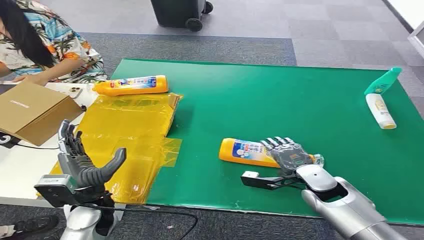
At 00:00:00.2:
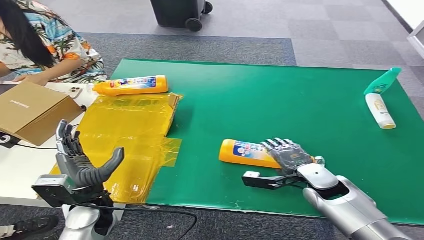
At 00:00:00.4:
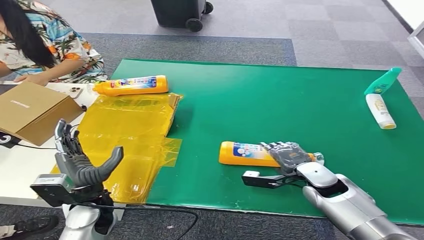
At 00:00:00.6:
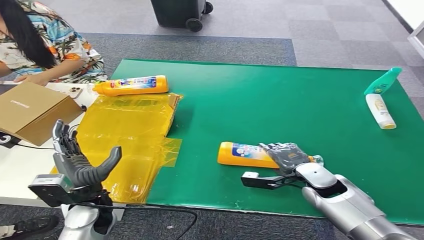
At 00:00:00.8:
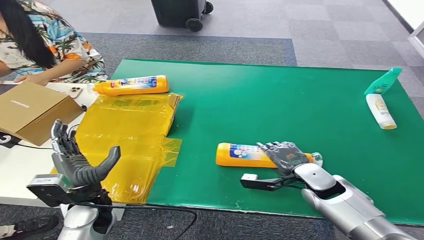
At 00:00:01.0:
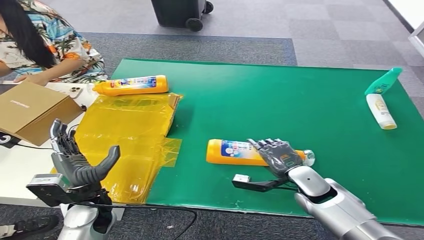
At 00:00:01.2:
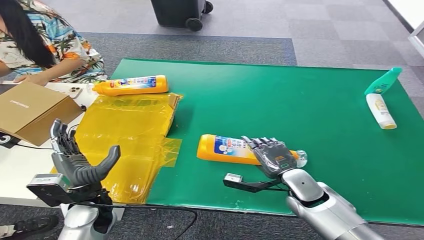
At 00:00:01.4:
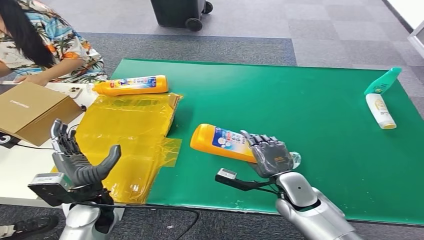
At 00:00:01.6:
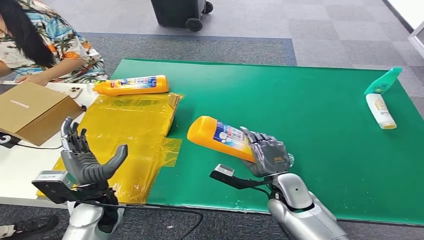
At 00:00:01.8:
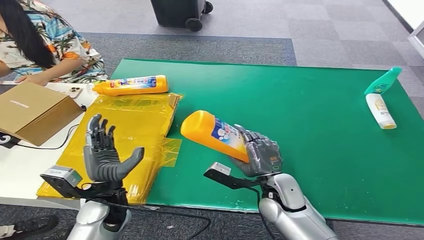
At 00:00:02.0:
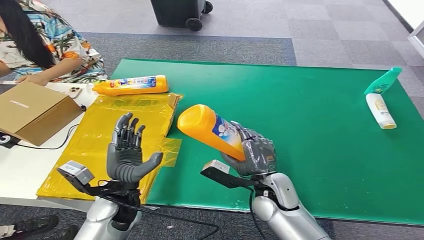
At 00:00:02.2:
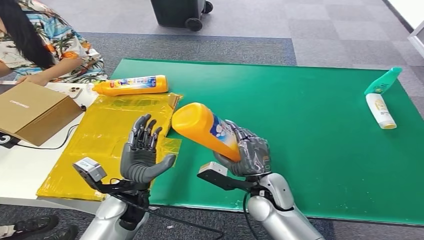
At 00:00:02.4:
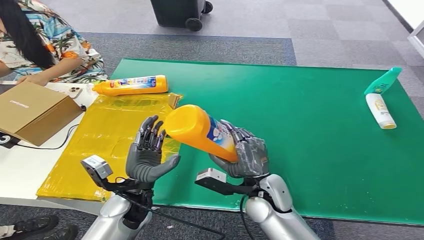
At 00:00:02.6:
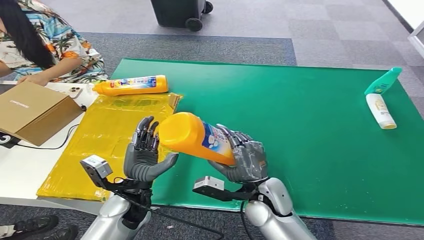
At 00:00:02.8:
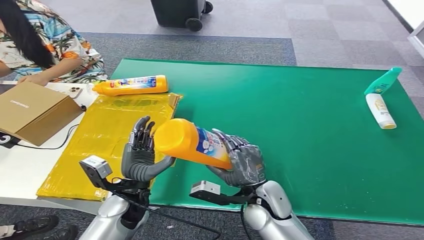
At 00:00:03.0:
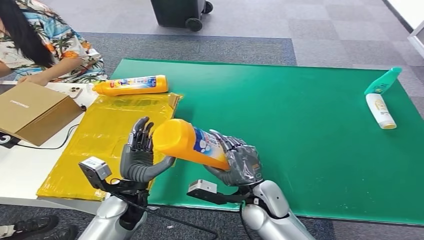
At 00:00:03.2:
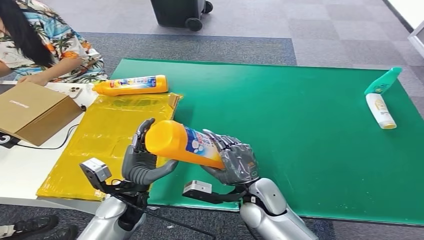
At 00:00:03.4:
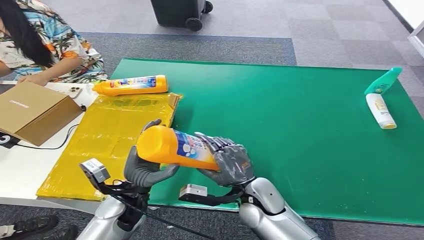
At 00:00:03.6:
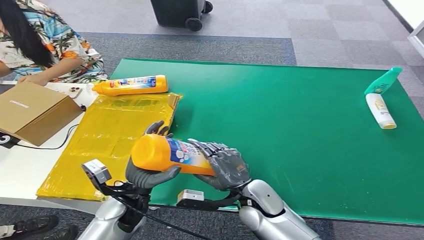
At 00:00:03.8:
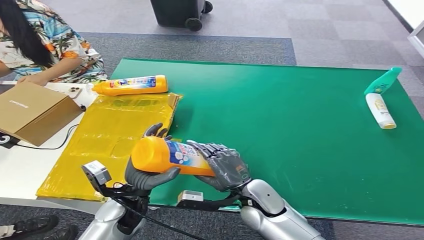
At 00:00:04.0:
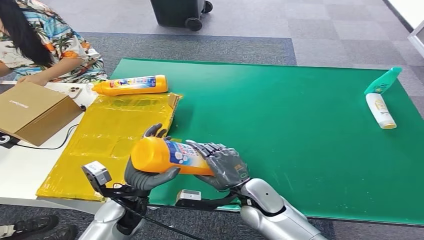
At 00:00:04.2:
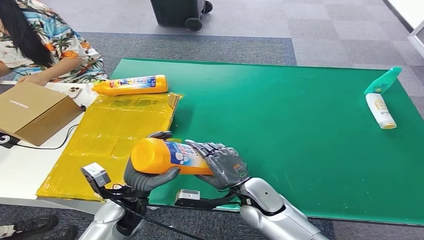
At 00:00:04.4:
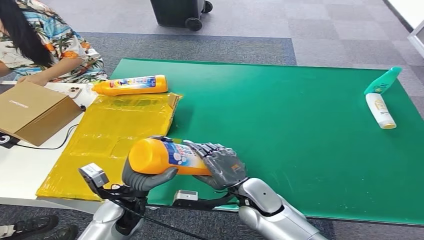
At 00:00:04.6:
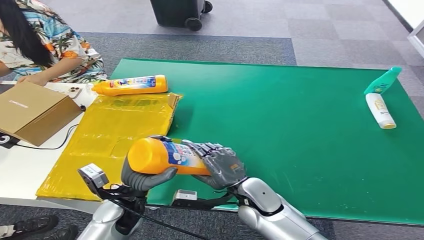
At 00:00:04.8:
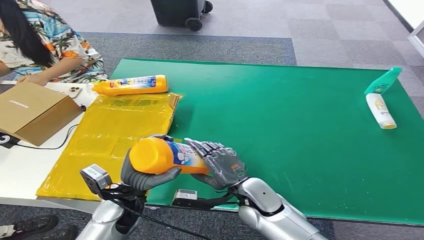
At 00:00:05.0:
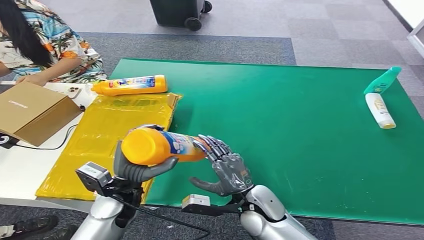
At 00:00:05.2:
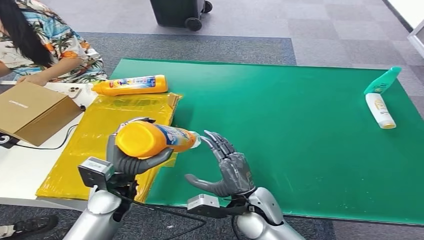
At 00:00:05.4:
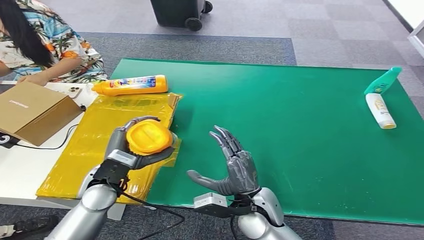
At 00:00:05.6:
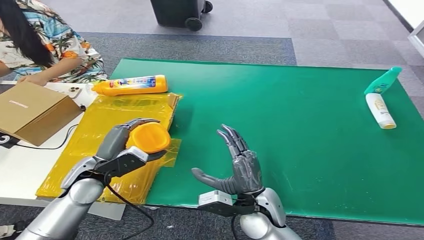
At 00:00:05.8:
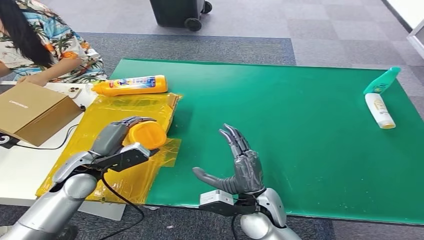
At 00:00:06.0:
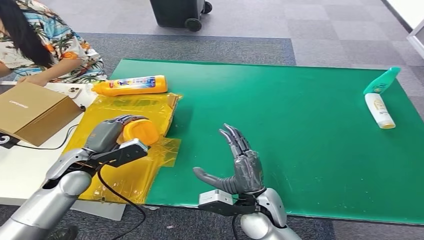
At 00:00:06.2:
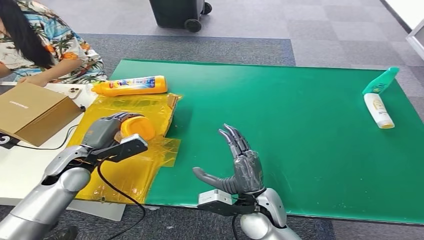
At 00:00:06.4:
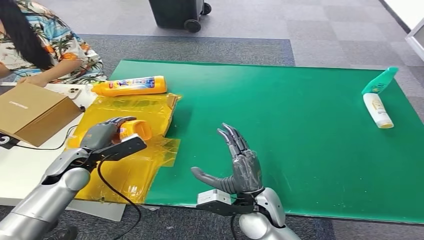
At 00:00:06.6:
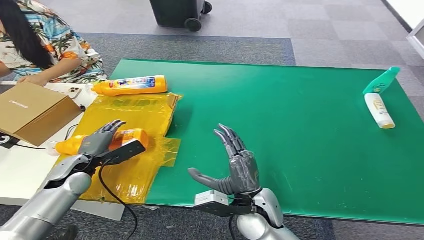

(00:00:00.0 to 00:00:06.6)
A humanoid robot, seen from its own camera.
Step, 00:00:00.0 - 00:00:02.4: Pick up the bottle from the table.
Step, 00:00:02.6 - 00:00:06.6: Turn the bottle to the front side.
00:00:01.6 - 00:00:03.2: The right hand moves to the left, some 5 cm, while the left hand heads to the right, covering roughly 5 cm.
00:00:03.2 - 00:00:05.0: There are only small adjustments of the hands.
00:00:05.0 - 00:00:06.6: The left hand is displaced to the left and forward by approximately 15 cm.

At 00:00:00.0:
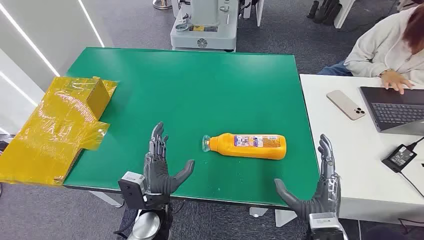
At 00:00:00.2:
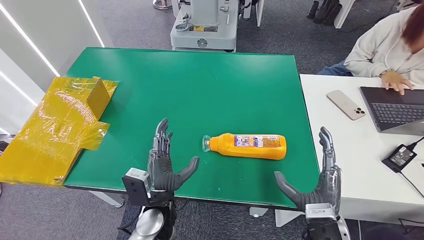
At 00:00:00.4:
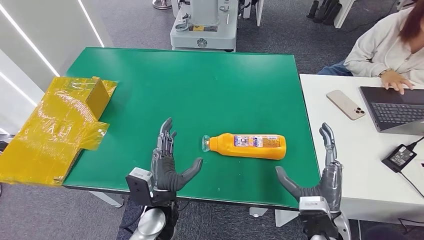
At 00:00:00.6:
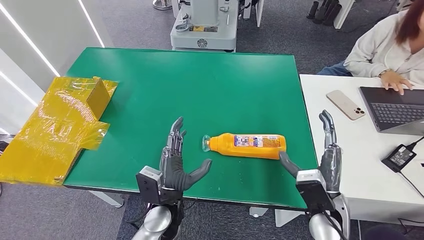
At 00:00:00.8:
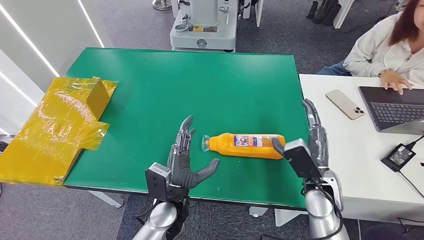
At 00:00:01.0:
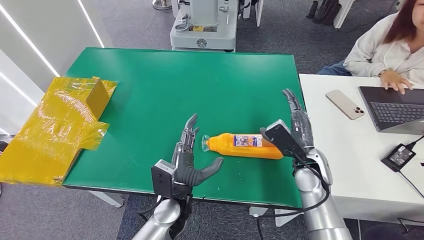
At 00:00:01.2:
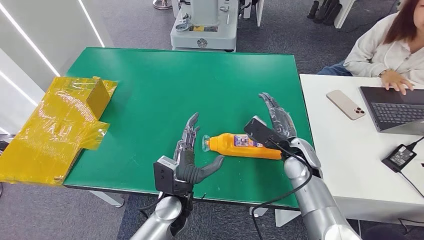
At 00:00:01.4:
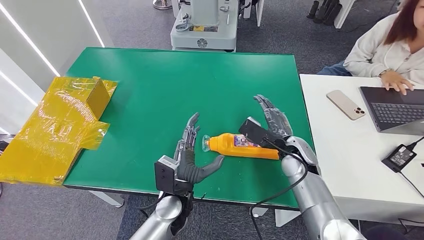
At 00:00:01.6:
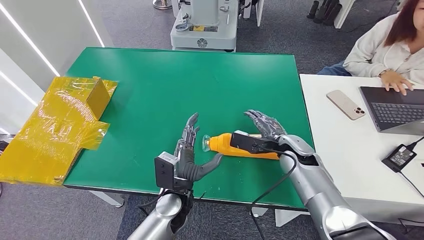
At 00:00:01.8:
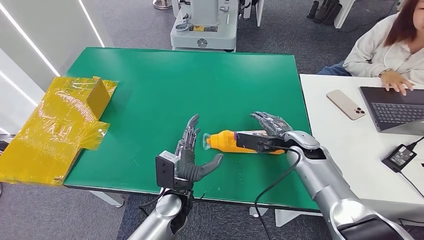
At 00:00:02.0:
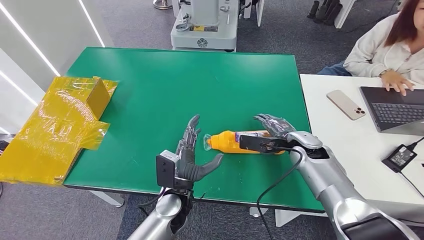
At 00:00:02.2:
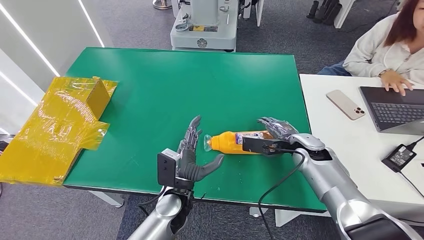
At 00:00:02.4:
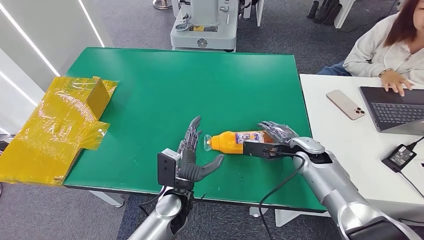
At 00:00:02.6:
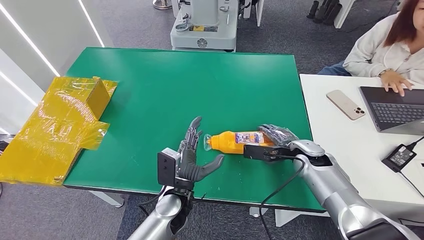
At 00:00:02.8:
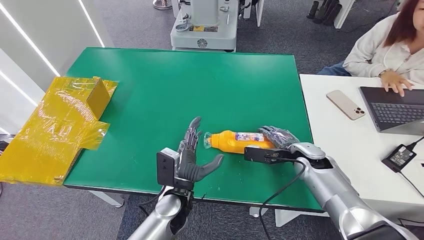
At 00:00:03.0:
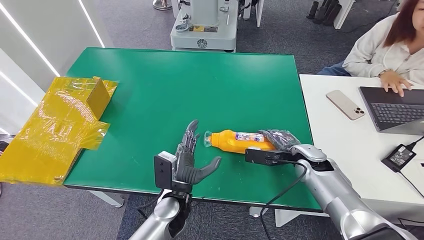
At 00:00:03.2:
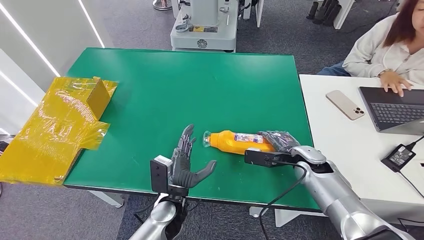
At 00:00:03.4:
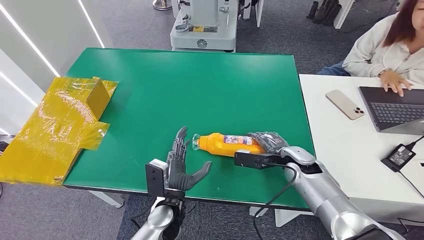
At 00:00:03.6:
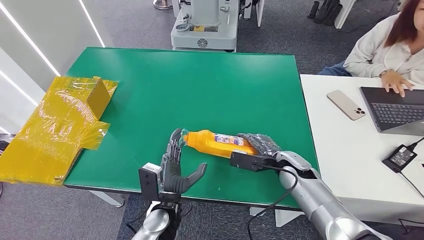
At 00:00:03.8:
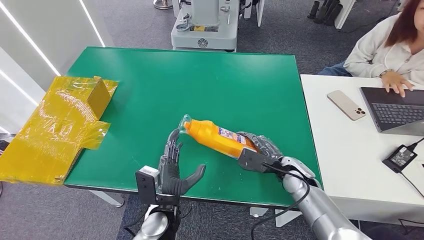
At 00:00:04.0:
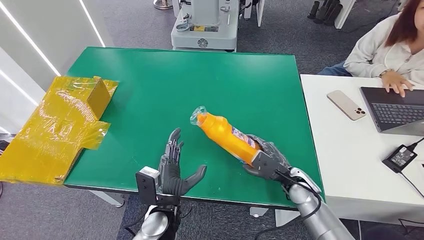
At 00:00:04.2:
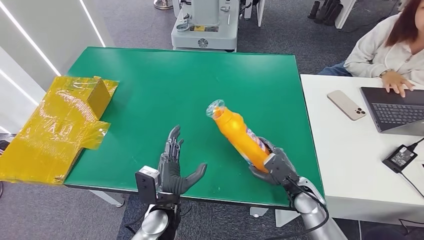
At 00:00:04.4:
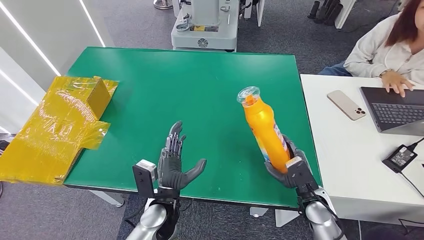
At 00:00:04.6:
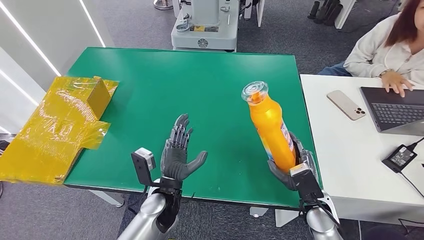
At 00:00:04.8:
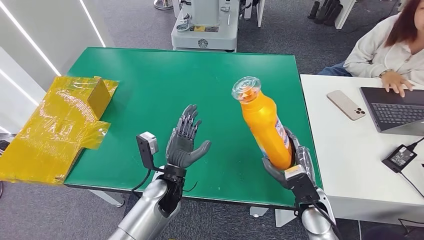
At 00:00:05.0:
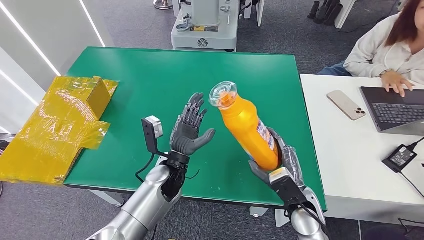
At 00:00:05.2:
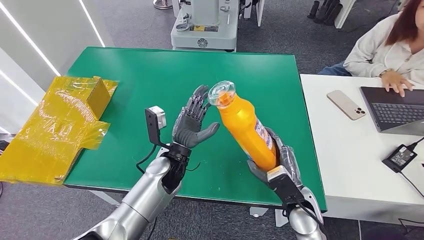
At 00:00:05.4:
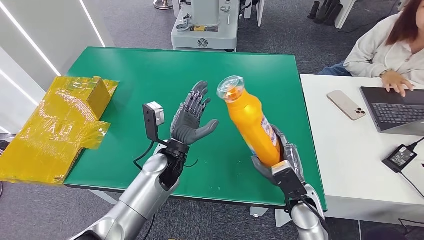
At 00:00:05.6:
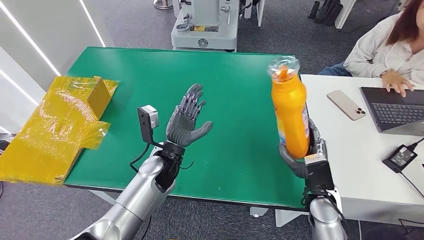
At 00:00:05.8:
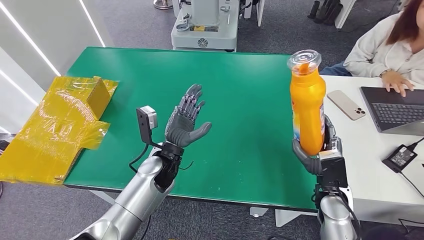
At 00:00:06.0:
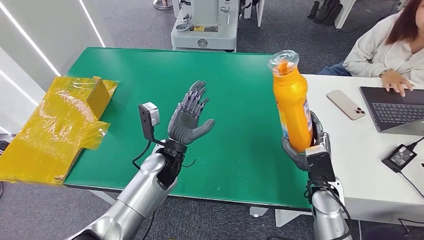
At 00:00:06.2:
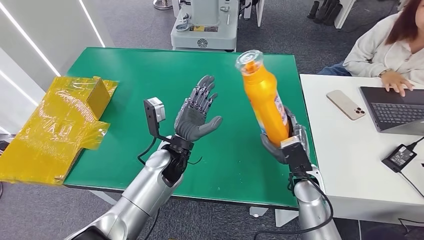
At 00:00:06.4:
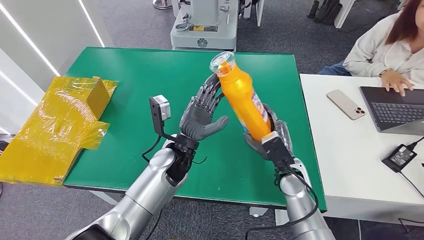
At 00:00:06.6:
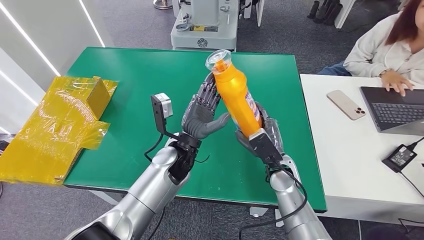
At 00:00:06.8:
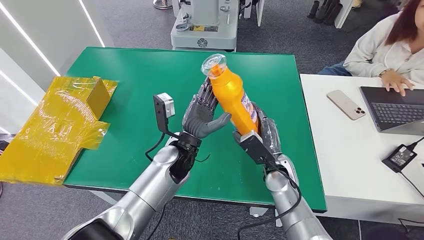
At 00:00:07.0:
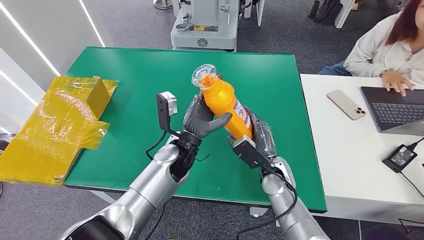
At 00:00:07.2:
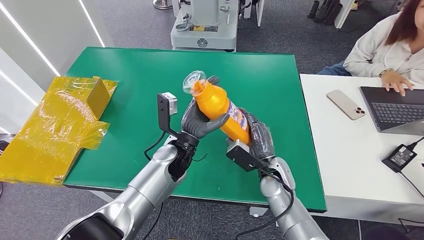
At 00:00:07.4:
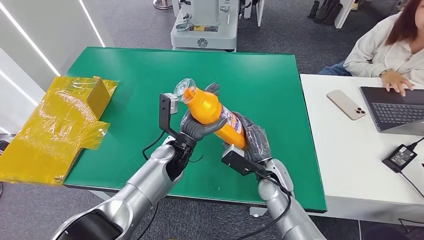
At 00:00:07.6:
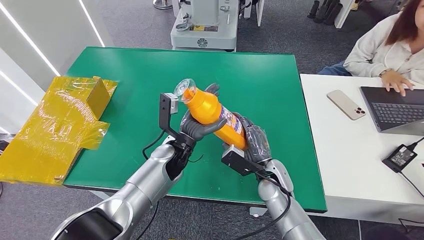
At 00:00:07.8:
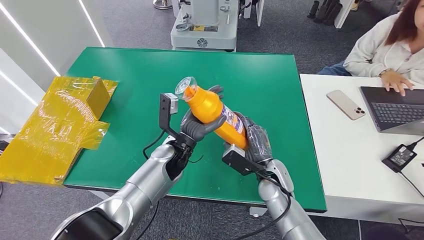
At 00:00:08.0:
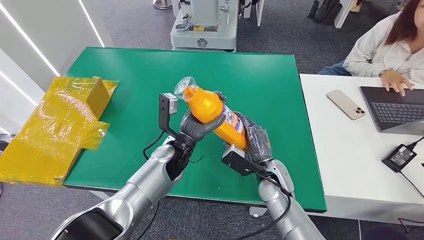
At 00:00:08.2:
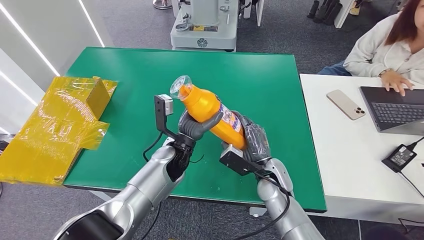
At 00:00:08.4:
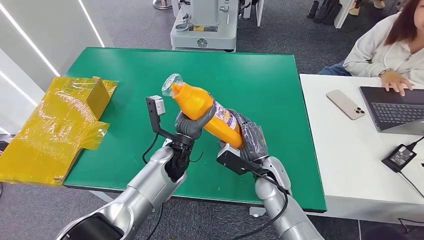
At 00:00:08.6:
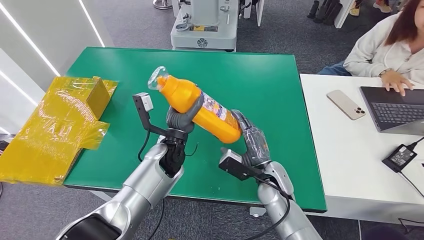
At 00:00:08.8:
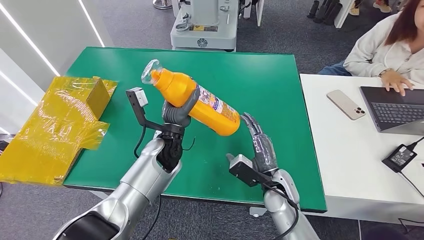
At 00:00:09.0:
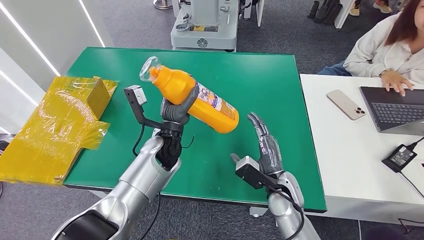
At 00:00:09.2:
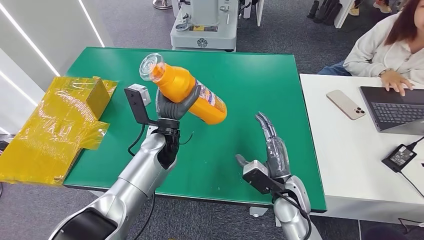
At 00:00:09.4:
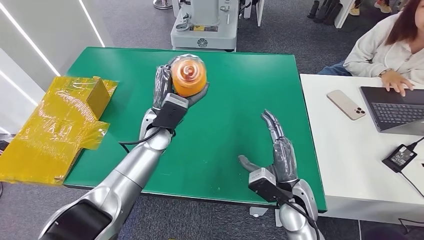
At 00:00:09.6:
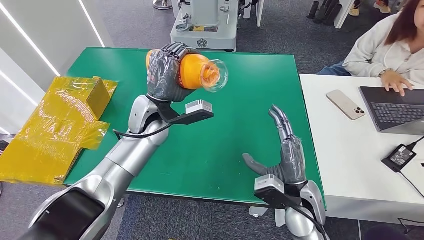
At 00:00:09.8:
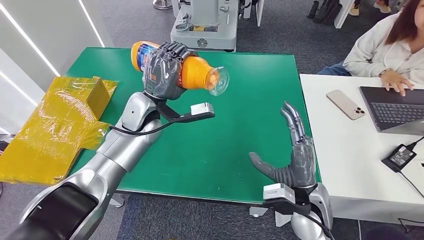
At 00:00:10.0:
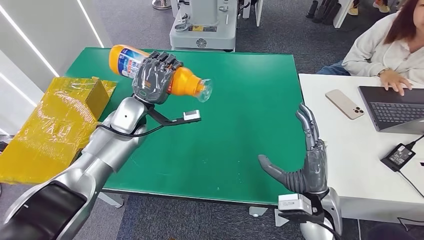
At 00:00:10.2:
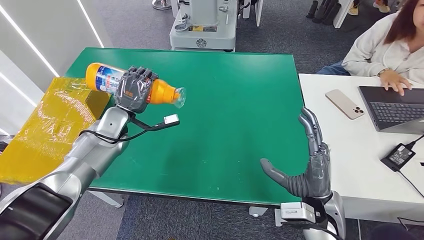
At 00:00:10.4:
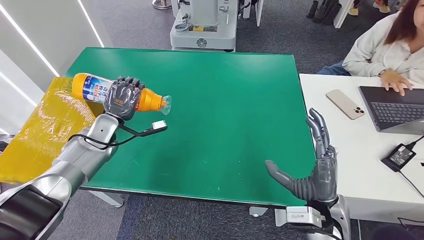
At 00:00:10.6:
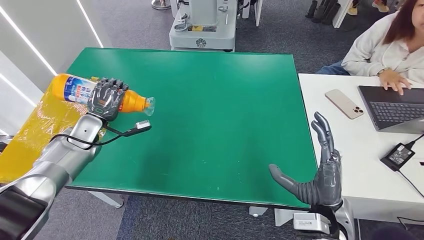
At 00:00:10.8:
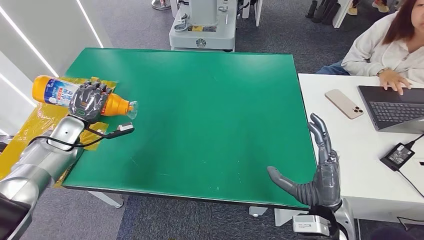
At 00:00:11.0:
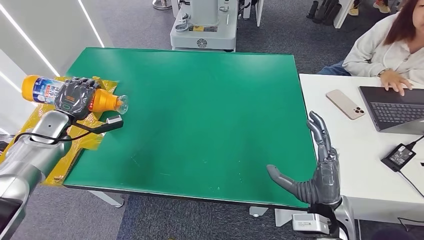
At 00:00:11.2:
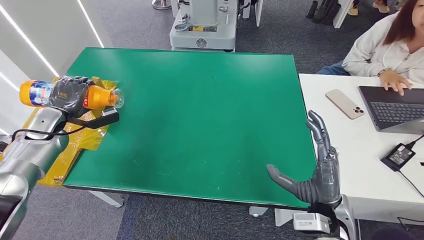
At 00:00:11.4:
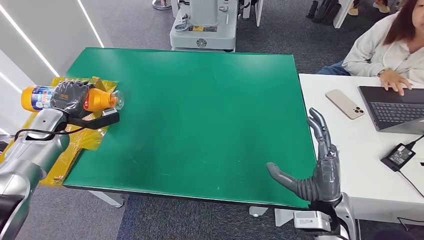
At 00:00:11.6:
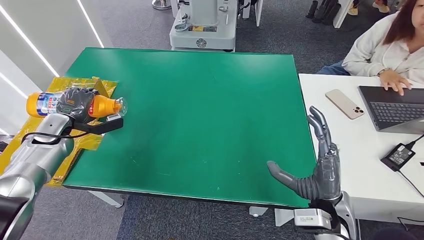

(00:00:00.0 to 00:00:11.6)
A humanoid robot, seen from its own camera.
Step, 00:00:00.0 - 00:00:04.4: Pick up the bottle from the table.
00:00:01.4 - 00:00:02.8: The right hand shifts roughly 10 cm to the right.
00:00:02.8 - 00:00:04.4: The right hand heads backward and downward, covering about 15 cm.
00:00:04.4 - 00:00:05.8: The left hand is displaced forward and upward by about 10 cm. Meanwhile the right hand goes approximately 5 cm upward.
00:00:10.2 - 00:00:11.6: The left hand is displaced to the left by about 20 cm.
